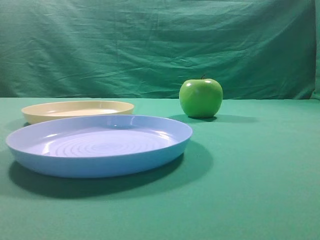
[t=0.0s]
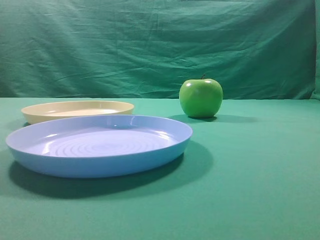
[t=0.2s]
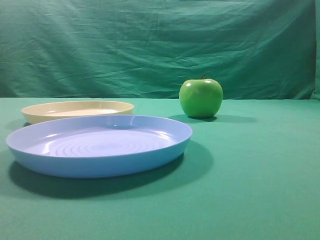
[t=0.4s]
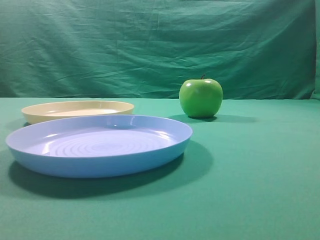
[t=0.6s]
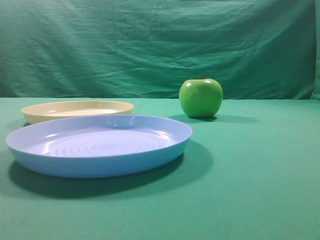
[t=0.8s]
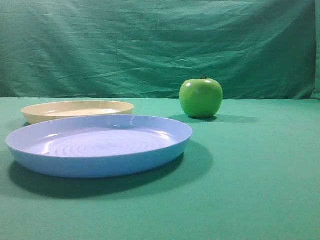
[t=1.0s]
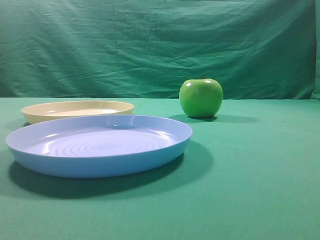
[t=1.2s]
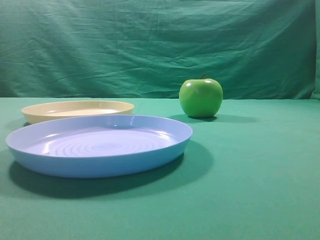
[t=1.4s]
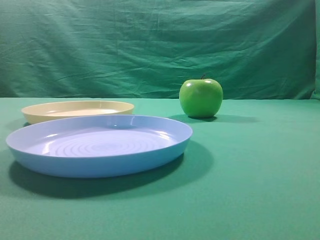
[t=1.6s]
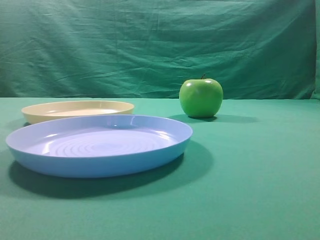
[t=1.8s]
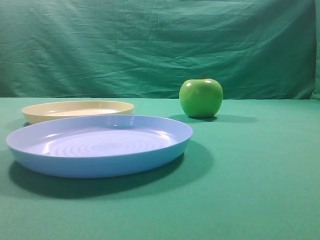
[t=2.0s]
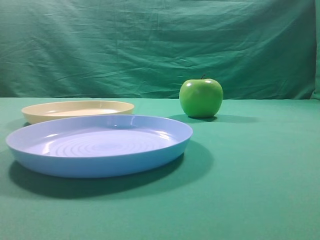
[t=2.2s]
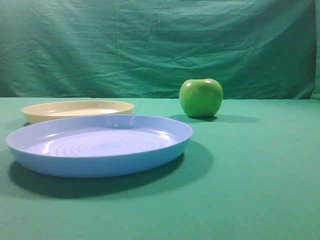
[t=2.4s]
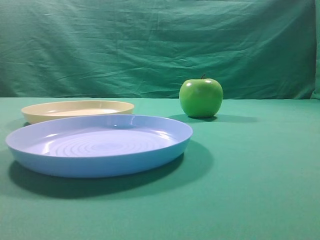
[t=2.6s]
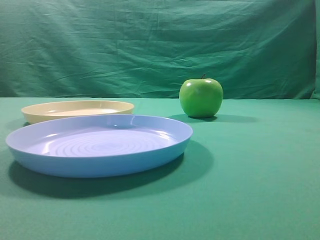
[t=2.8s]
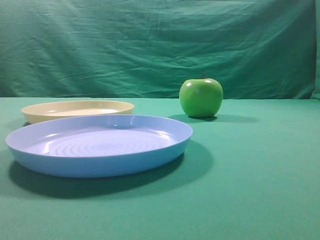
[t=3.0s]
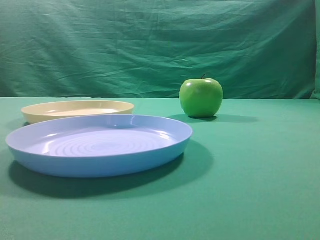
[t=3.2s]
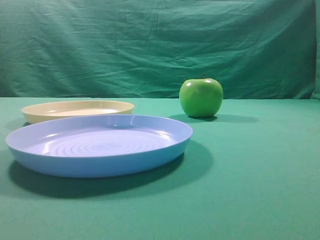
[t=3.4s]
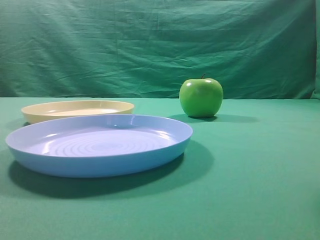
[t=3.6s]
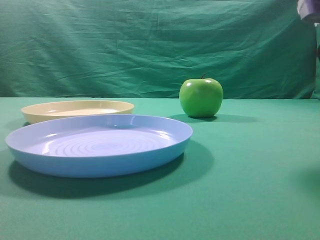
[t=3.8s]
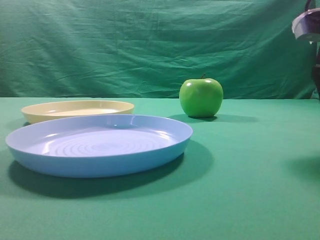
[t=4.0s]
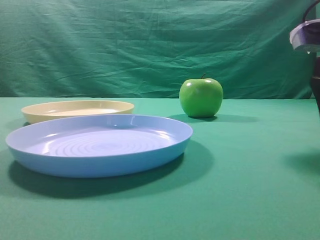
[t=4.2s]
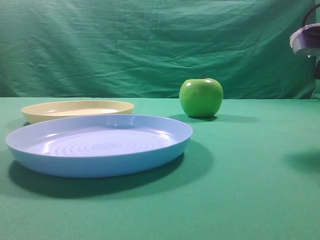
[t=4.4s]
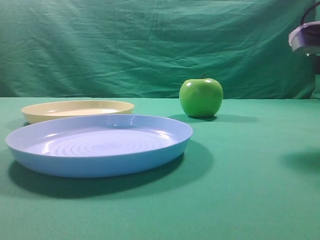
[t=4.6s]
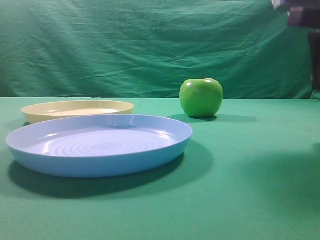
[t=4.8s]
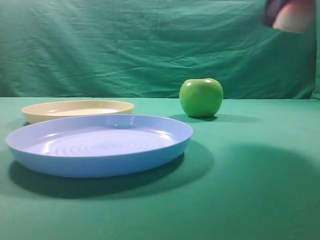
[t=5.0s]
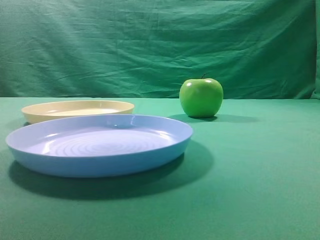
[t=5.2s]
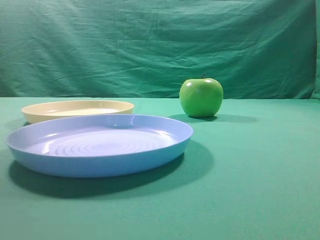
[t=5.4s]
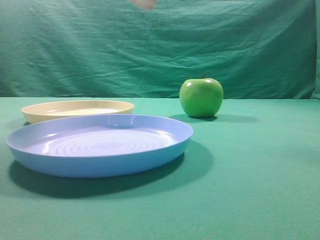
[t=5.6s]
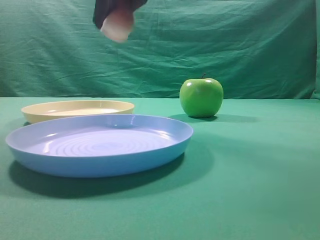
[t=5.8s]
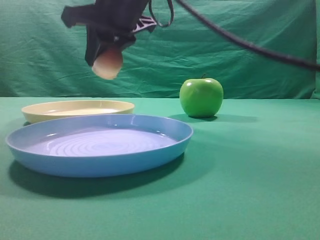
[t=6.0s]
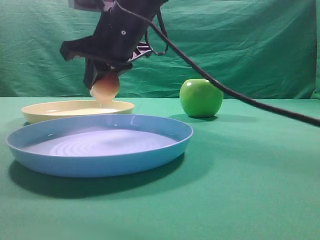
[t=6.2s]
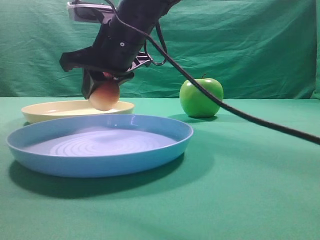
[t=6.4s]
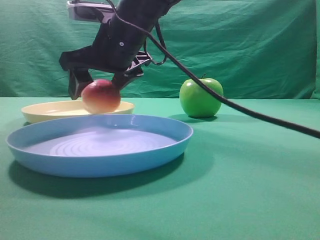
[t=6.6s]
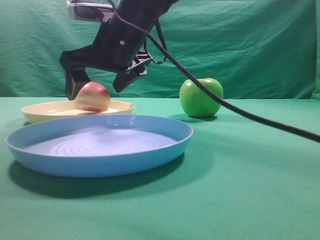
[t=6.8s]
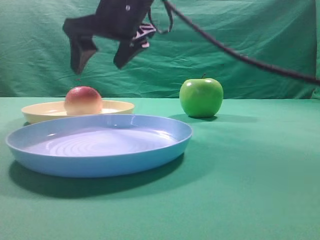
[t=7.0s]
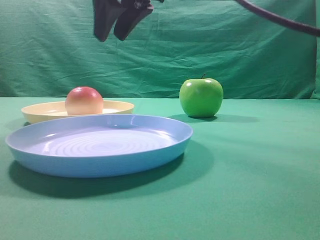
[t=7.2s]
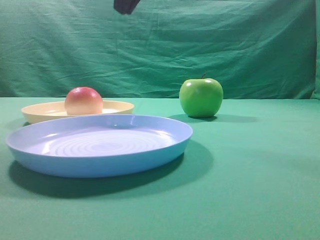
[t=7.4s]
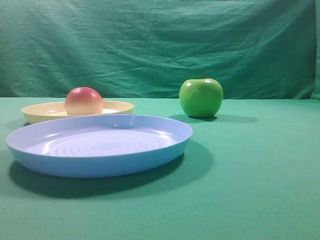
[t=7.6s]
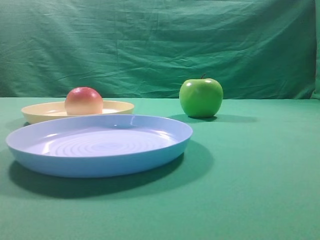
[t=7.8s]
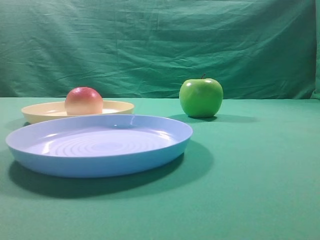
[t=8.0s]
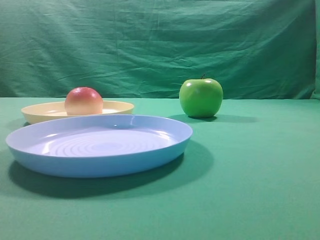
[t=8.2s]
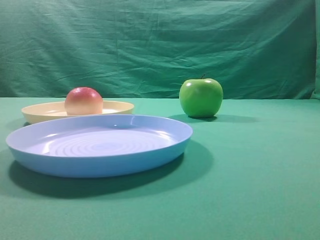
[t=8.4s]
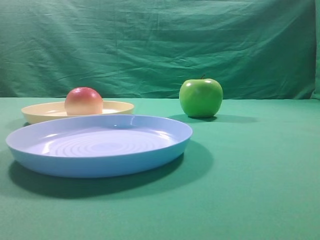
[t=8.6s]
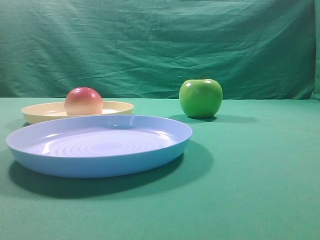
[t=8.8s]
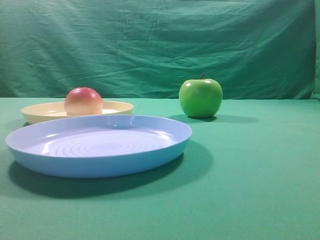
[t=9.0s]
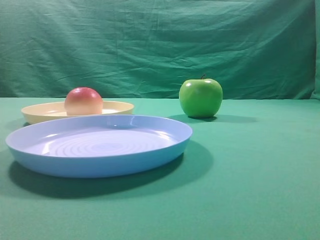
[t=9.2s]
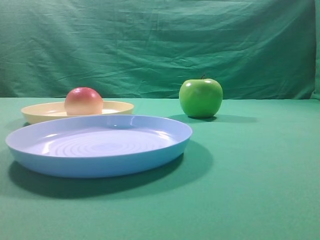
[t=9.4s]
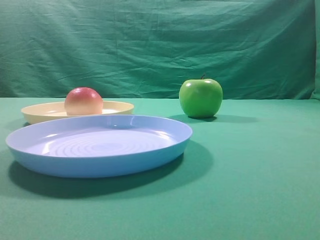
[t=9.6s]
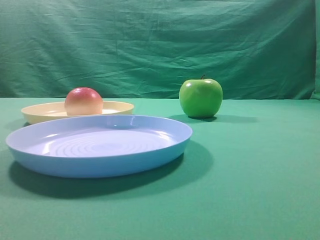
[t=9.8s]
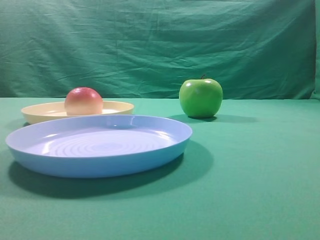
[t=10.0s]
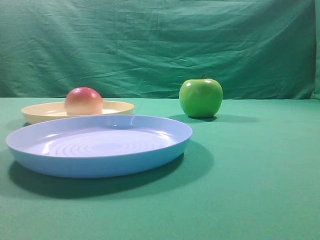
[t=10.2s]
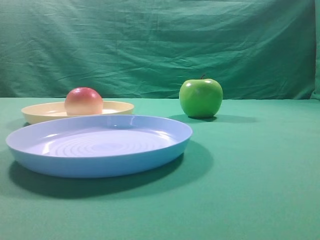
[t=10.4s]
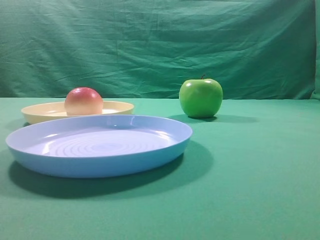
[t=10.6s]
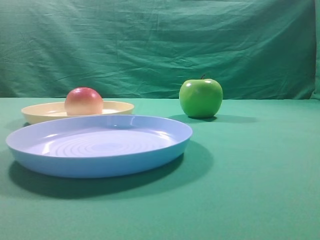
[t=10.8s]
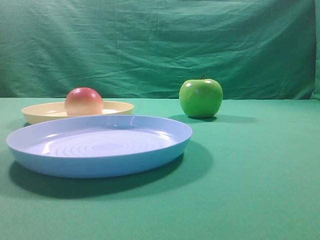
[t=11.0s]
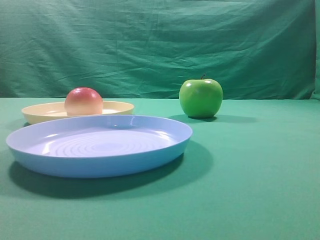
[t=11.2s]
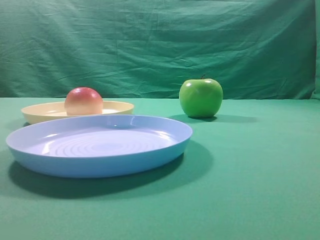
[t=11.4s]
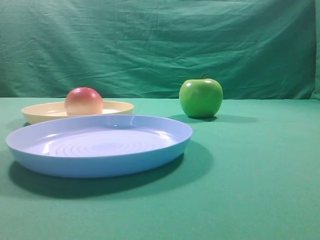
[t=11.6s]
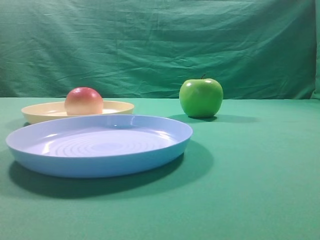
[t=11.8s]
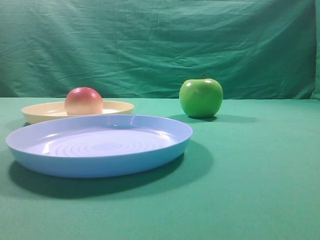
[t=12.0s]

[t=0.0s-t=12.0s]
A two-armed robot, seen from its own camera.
Step, t=4.8s to t=7.0s: Place the picked object on the yellow plate.

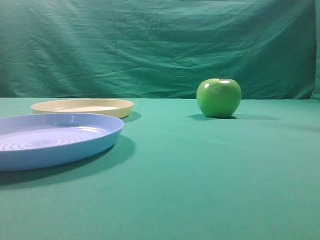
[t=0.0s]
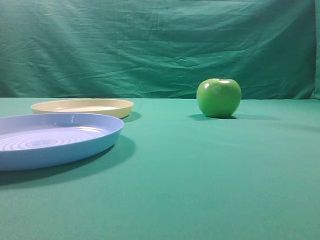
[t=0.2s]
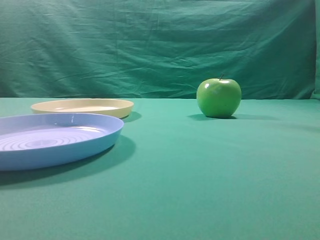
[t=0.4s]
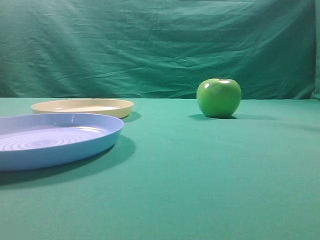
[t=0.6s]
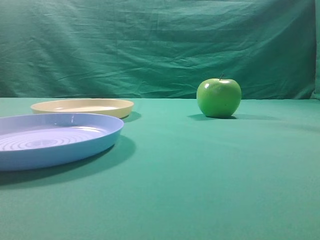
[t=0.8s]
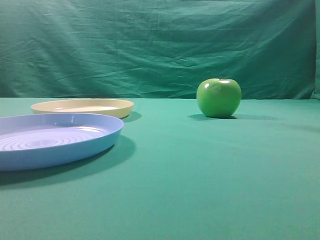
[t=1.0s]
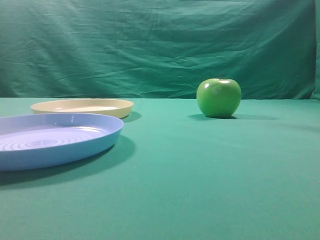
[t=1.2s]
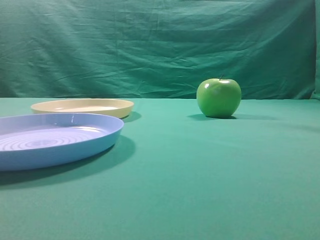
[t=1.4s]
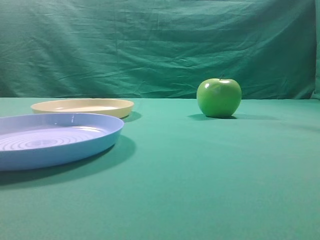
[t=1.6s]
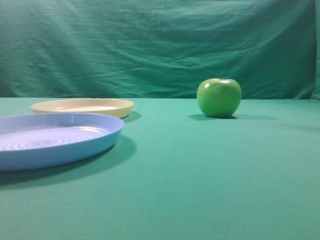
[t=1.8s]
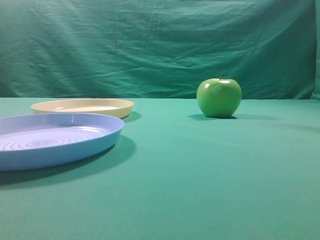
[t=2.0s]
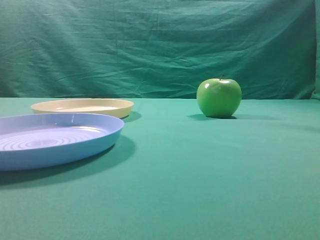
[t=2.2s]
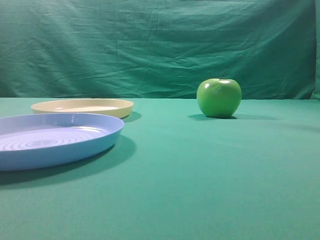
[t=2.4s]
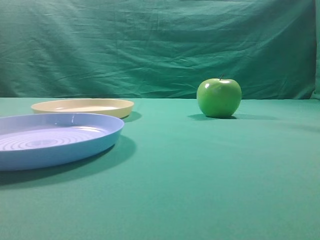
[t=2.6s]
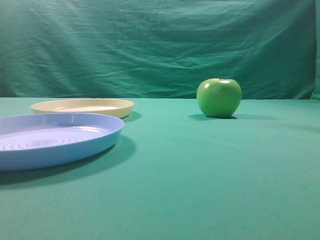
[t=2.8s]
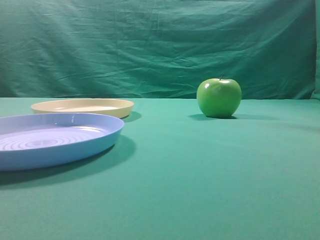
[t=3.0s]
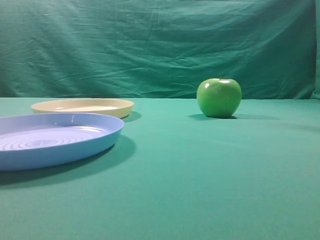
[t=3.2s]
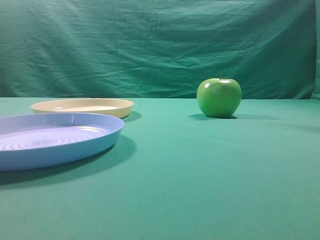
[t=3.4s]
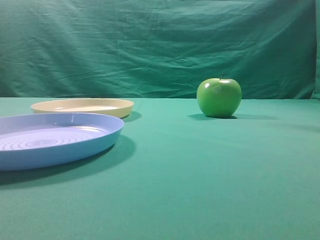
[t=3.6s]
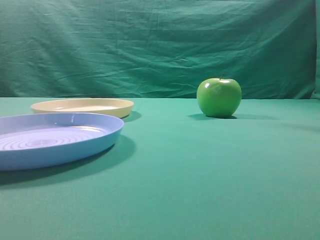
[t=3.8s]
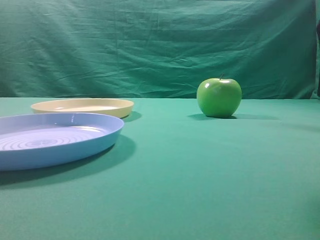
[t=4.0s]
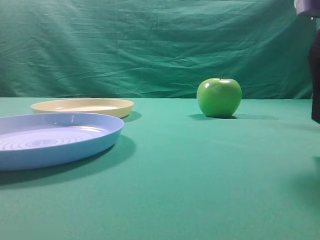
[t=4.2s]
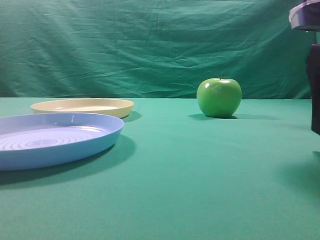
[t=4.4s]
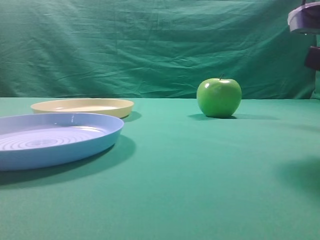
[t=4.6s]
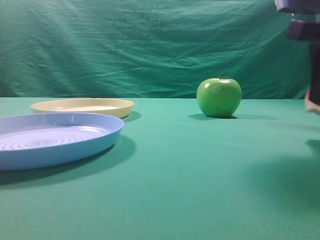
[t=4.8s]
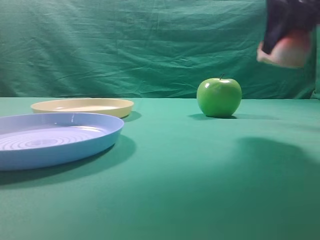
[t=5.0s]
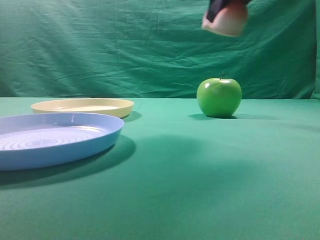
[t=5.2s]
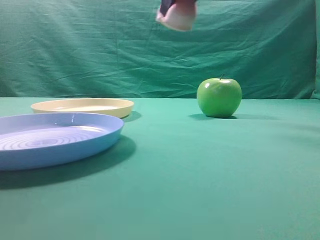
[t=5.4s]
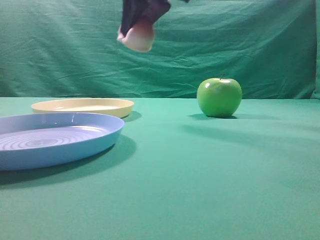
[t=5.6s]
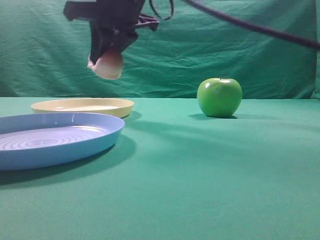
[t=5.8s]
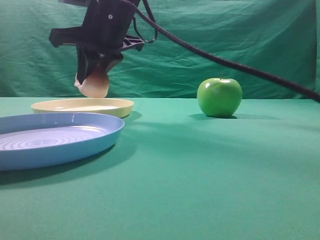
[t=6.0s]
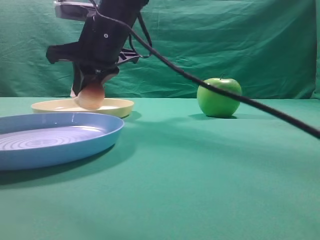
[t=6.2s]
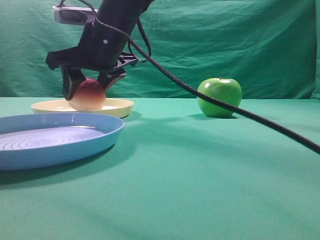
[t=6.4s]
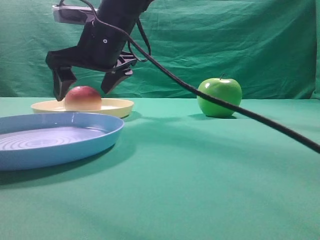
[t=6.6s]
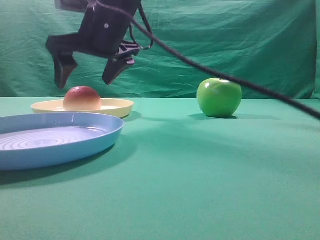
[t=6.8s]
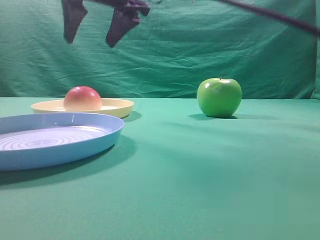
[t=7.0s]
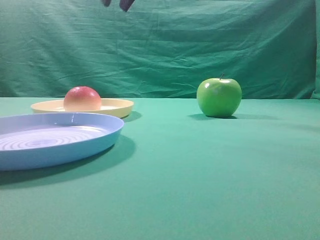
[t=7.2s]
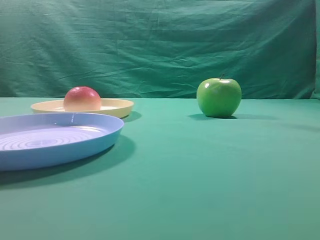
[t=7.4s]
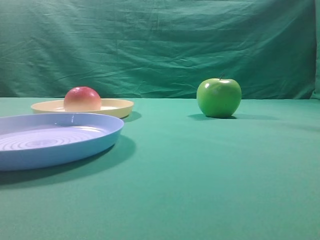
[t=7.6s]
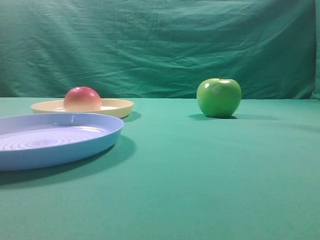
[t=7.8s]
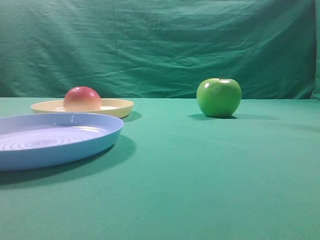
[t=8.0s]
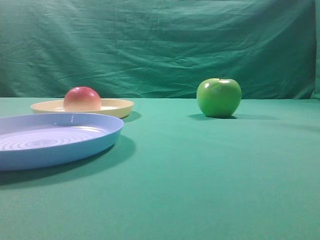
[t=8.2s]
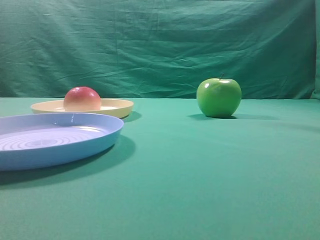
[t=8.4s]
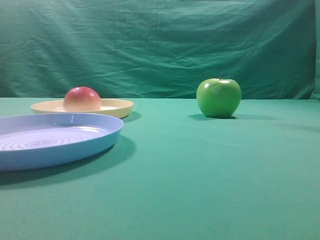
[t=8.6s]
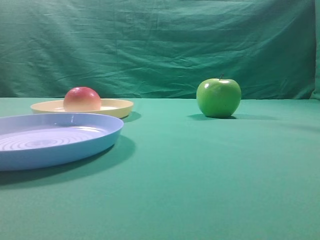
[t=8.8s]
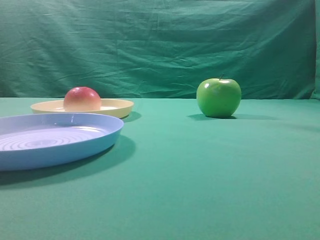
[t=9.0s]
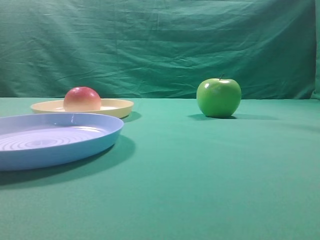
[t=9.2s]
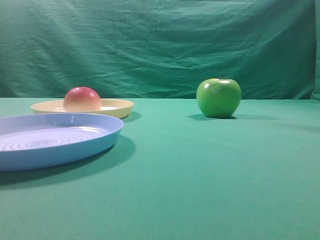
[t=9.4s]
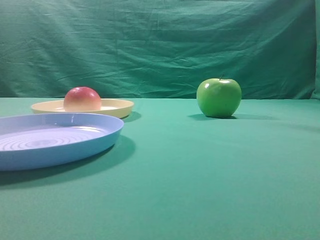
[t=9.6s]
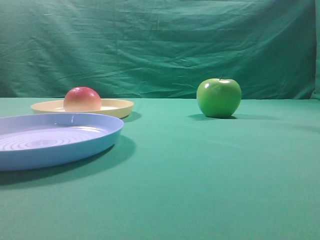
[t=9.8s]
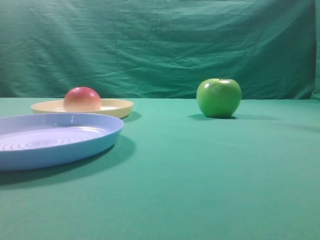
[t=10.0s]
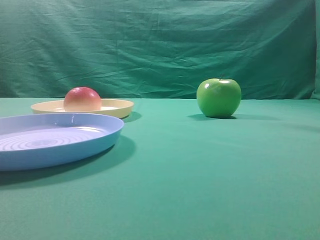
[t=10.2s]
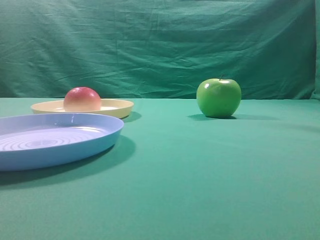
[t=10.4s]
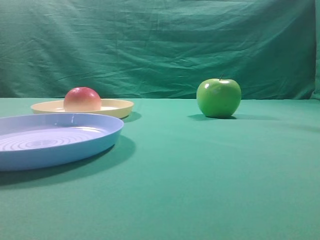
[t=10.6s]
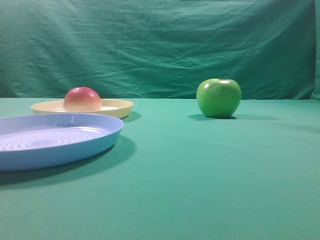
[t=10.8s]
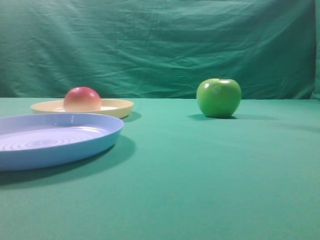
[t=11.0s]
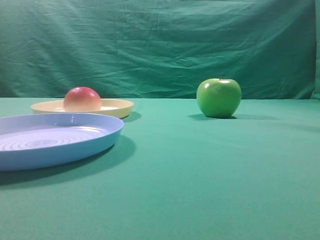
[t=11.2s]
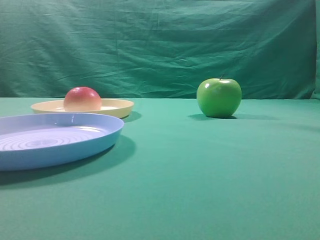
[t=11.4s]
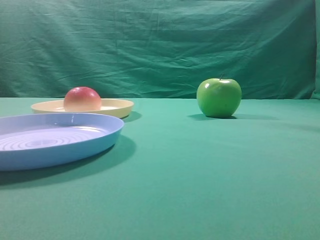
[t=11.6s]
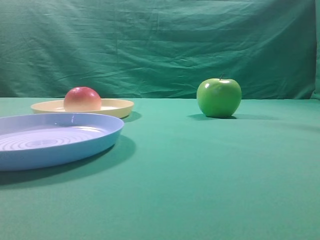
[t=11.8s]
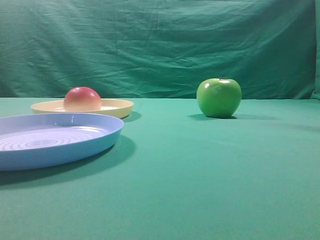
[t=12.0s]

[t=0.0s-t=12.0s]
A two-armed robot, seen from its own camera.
Step, t=5.0s to t=6.8s: Place the picked object on the yellow plate.
